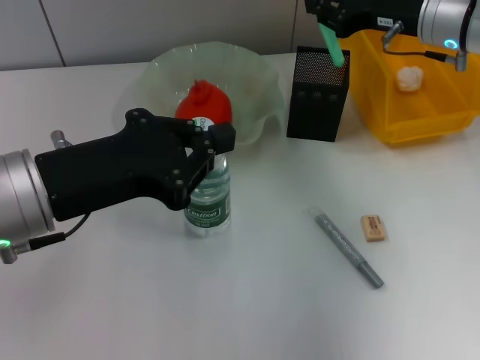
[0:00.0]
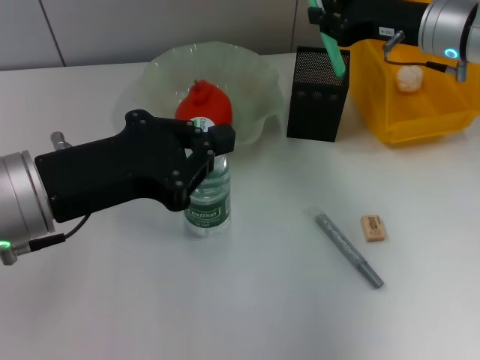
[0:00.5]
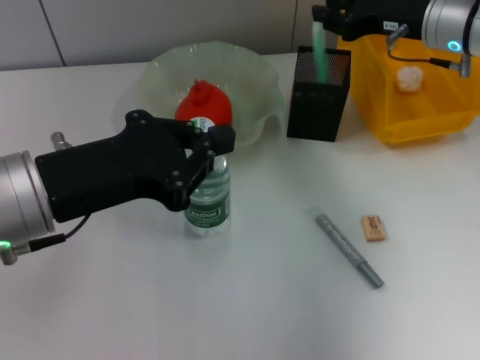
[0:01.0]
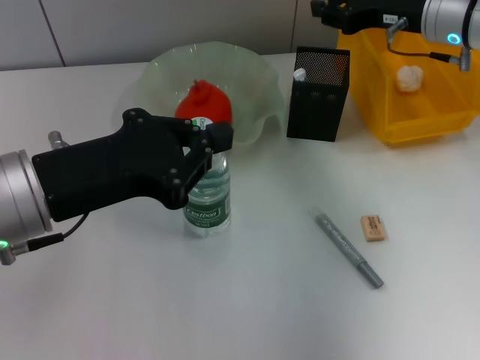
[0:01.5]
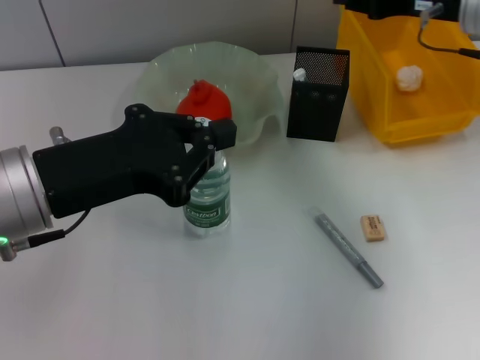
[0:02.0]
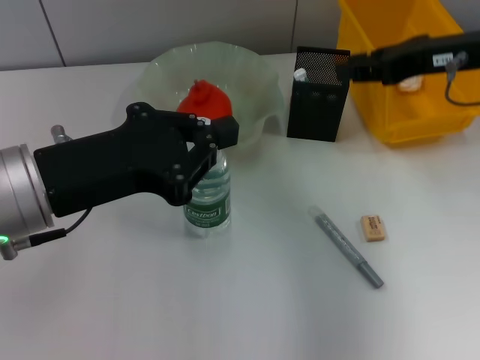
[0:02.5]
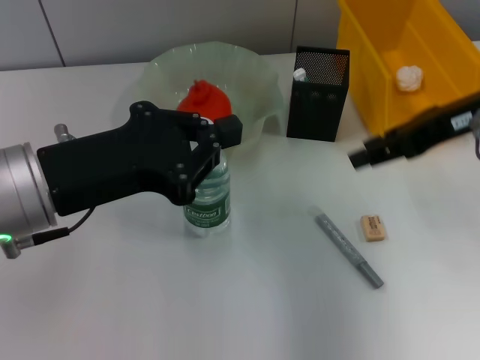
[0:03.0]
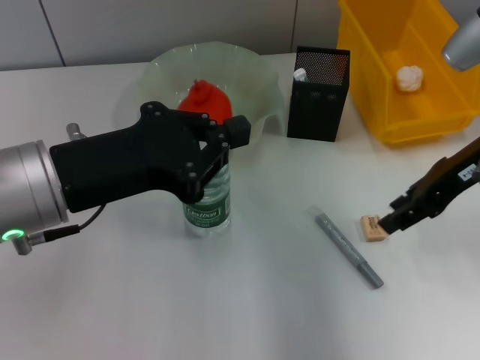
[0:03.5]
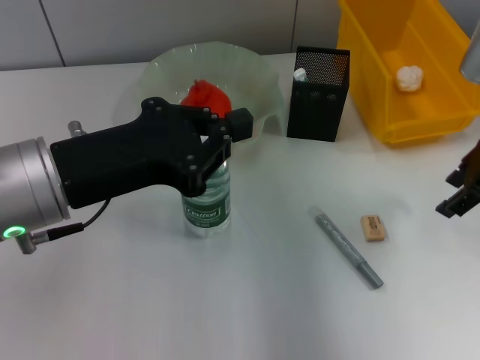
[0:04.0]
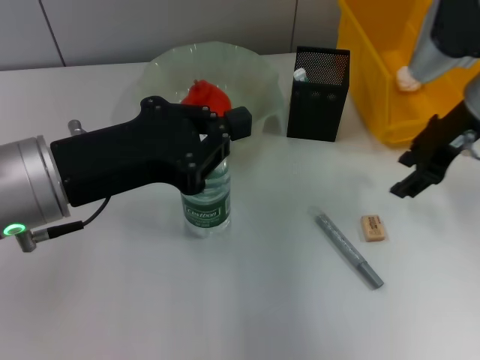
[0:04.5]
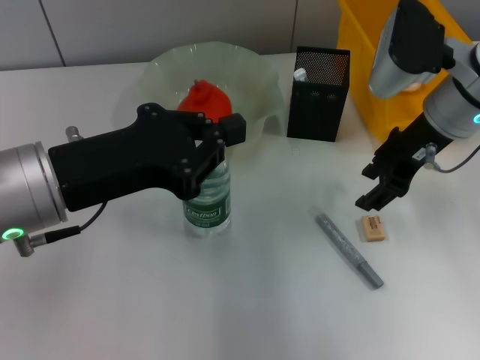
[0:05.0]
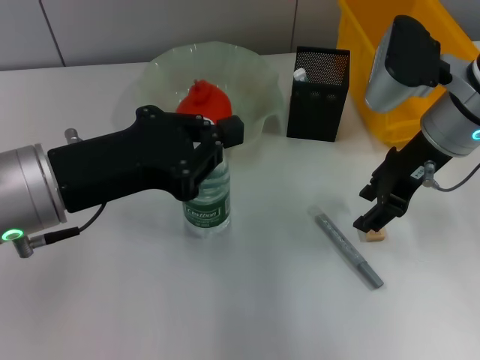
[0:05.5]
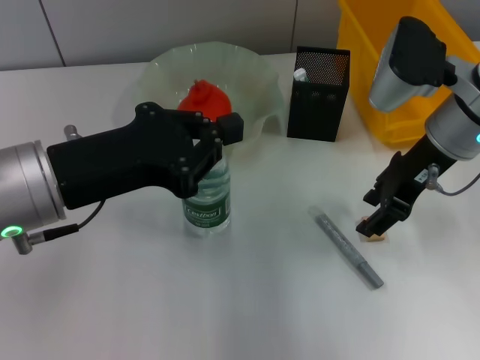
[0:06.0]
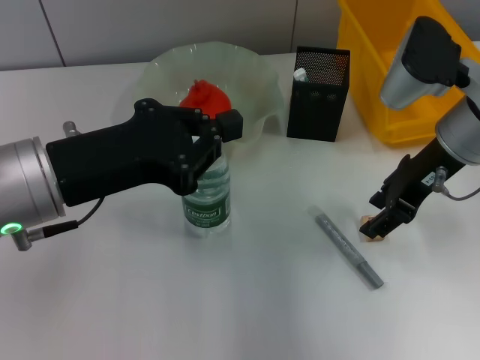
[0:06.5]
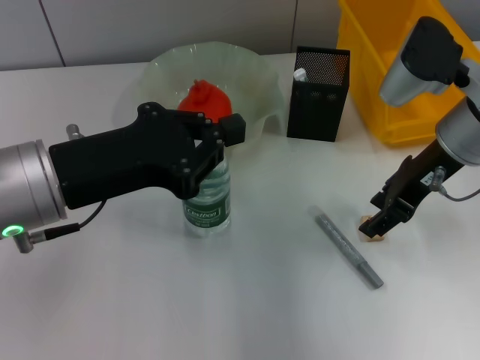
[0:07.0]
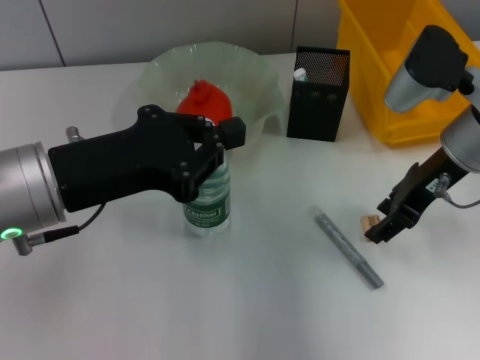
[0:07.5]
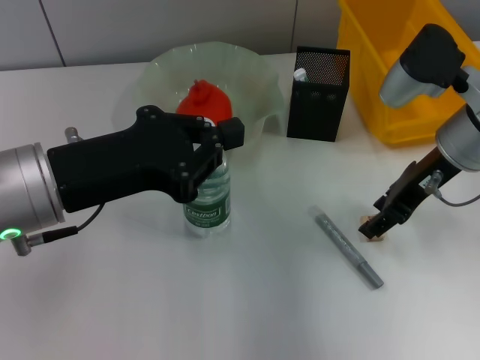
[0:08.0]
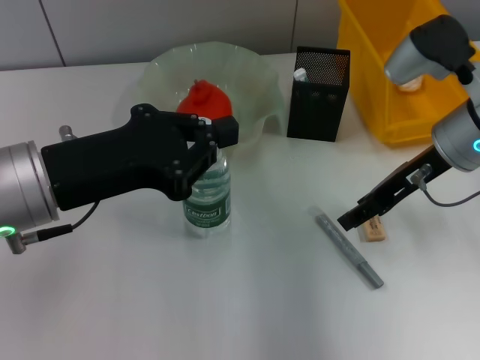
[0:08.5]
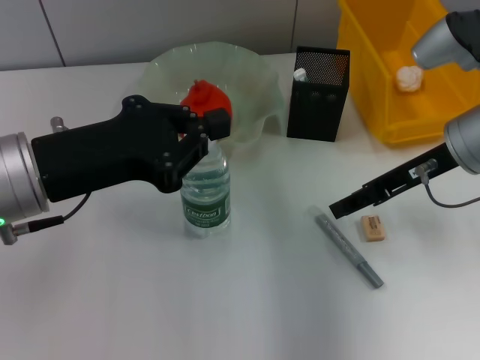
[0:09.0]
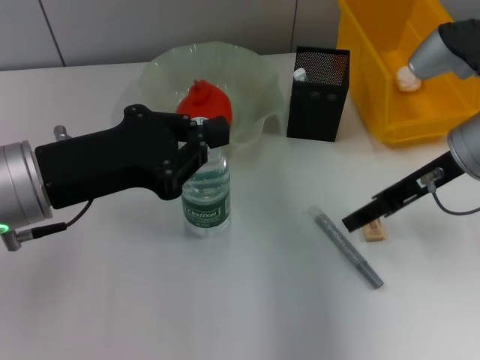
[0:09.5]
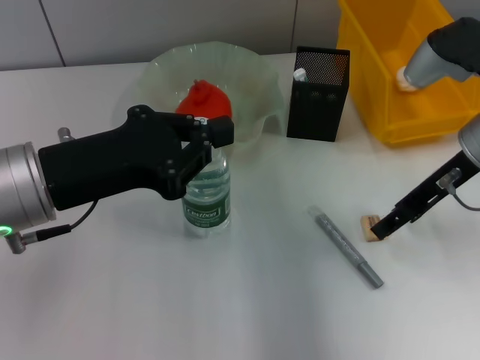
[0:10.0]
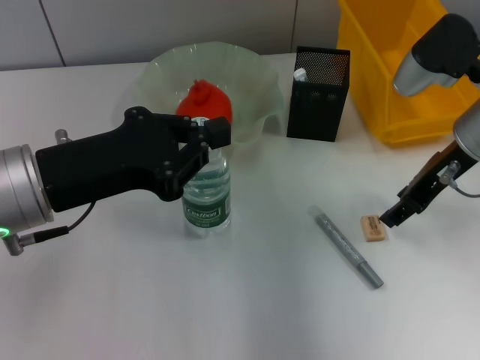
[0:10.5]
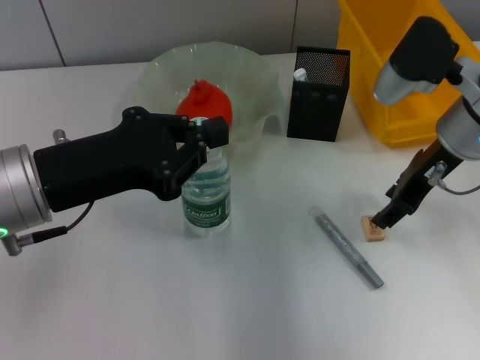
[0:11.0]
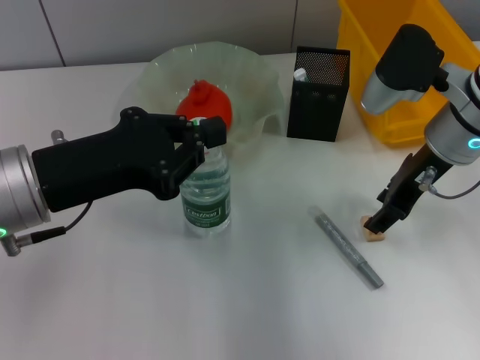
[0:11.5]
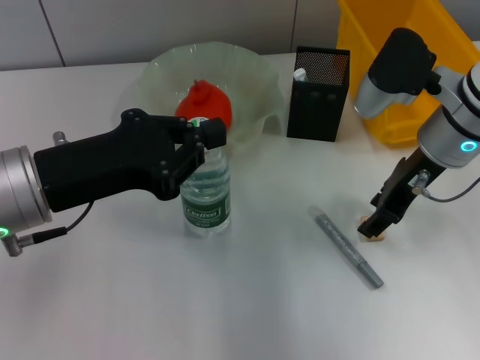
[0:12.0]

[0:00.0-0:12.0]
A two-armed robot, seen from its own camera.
0:00.0 to 0:02.0: There are only small adjustments of the grippers.
0:02.0 to 0:04.0: The right gripper travels backward by some 5 cm, and opens its fingers.
0:04.0 to 0:06.0: The right gripper heads to the left, covering approximately 5 cm.
0:06.0 to 0:08.0: The grippers move only a little.
0:10.0 to 0:12.0: There are only small adjustments of the grippers.

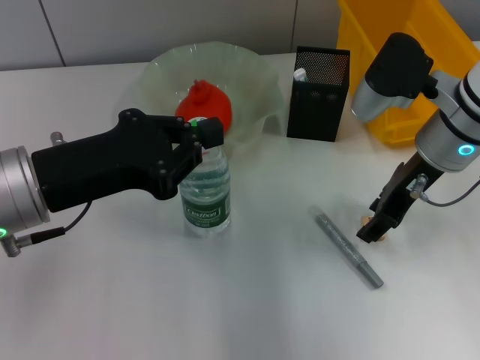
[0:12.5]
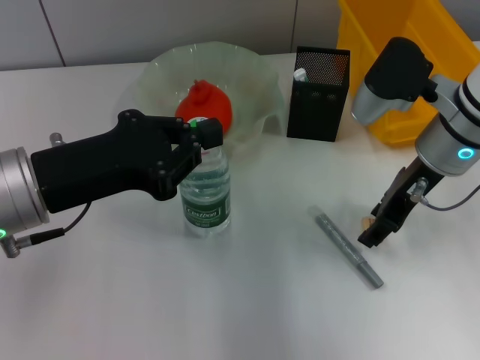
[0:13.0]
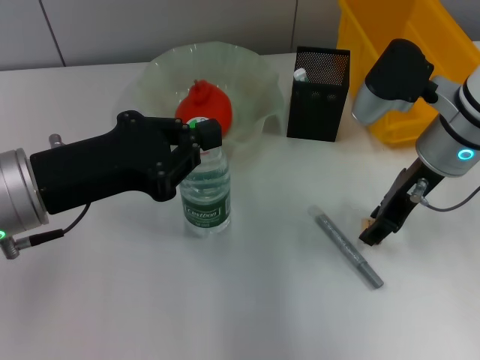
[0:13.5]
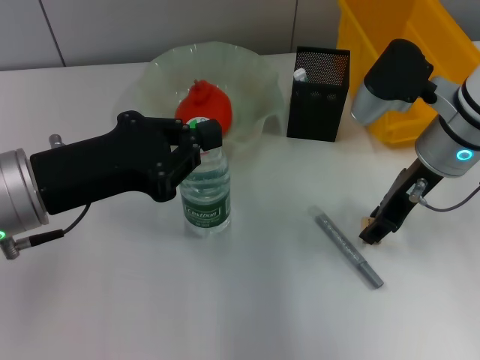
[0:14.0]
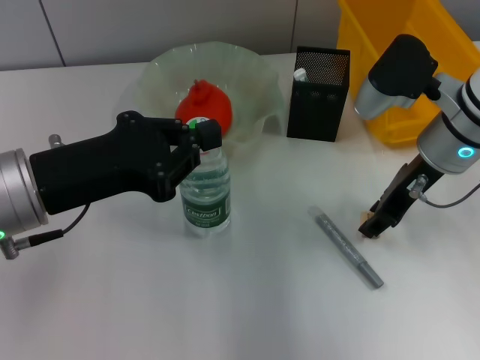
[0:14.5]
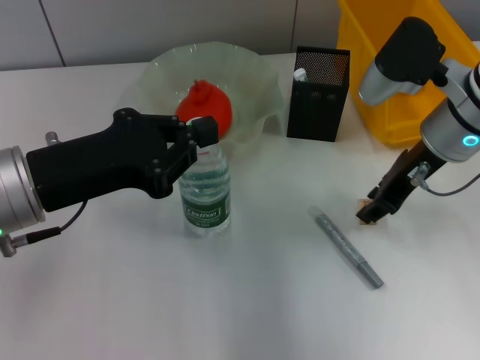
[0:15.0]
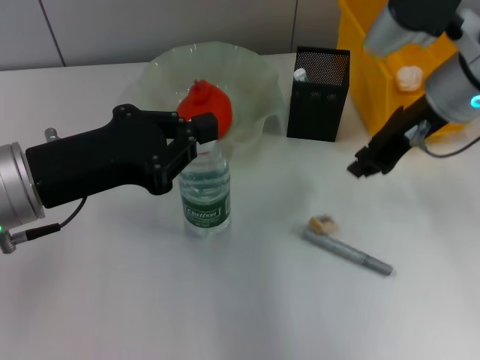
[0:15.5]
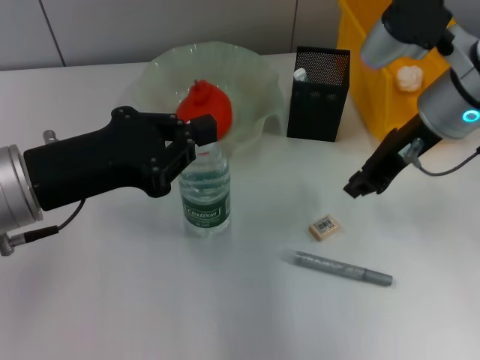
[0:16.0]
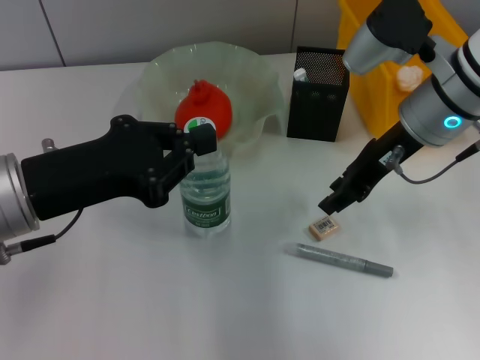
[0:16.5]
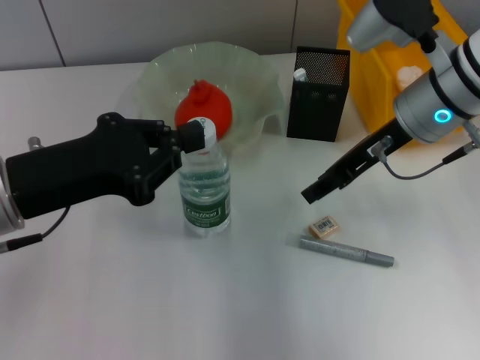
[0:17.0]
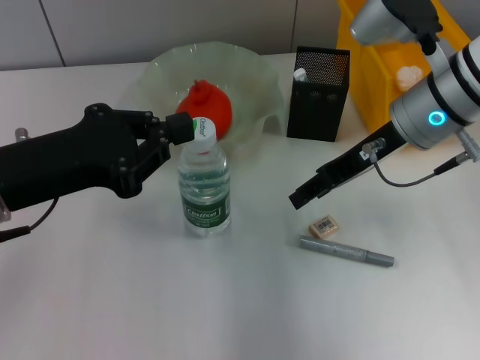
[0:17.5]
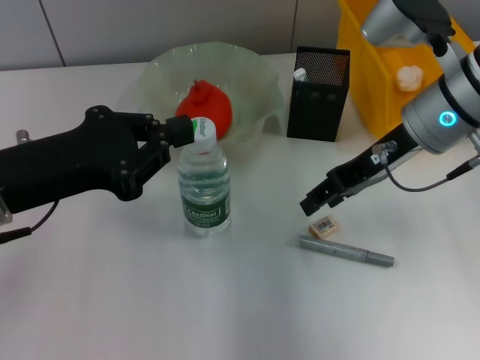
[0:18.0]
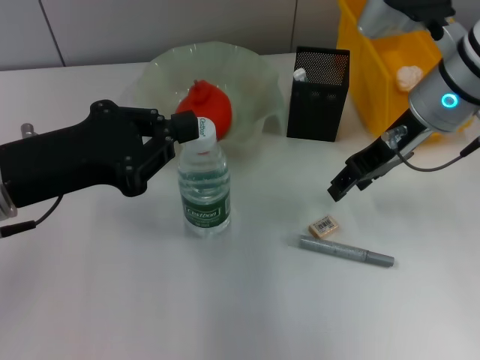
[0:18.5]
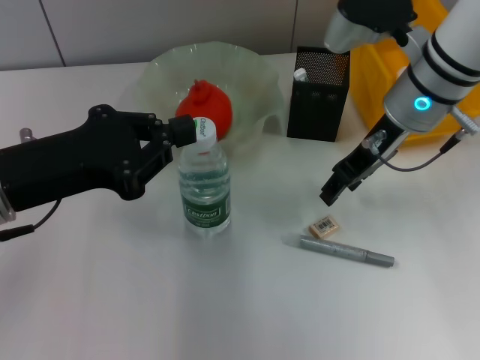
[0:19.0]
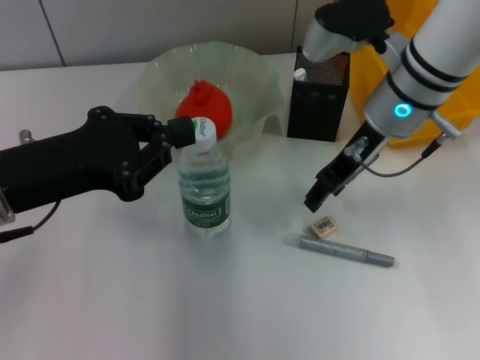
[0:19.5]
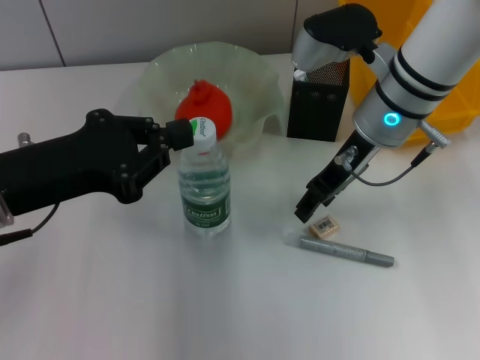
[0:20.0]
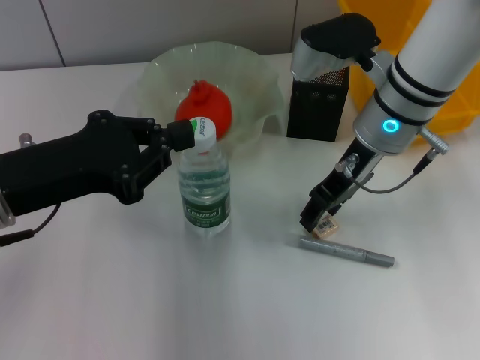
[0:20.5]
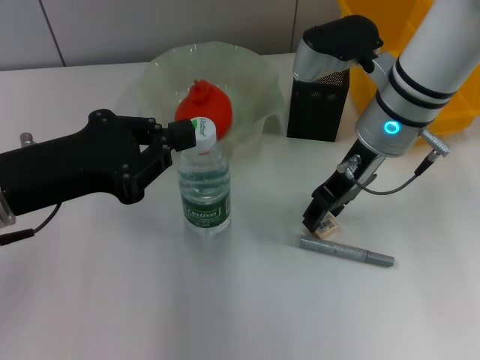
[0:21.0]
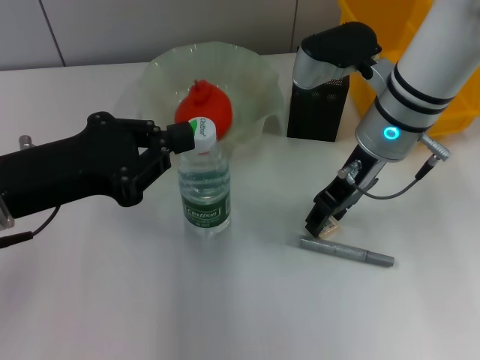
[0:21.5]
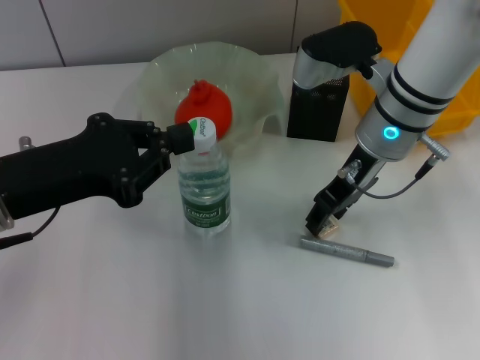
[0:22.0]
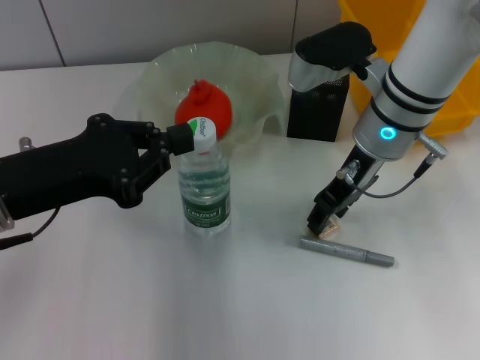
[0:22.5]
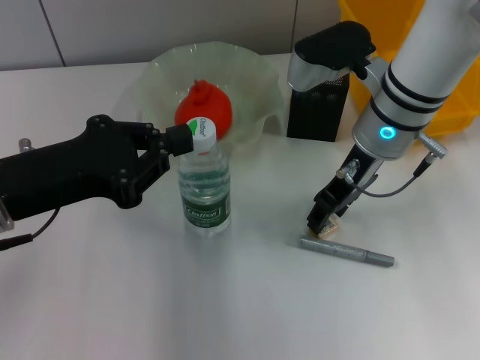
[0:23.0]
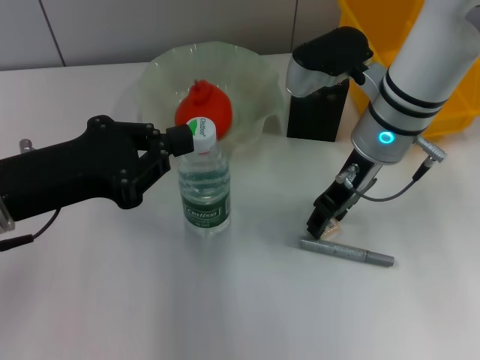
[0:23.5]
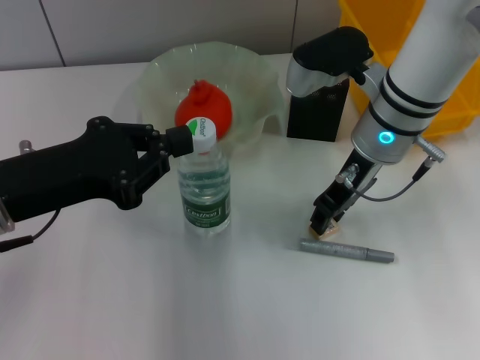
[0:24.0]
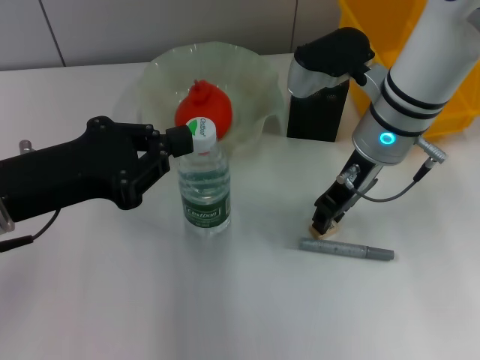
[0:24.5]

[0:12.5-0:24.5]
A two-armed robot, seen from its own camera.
0:12.5 to 0:14.5: Both grippers stay put.
0:14.5 to 0:16.5: The right gripper closes.
0:16.5 to 0:18.5: The right gripper opens up.
0:18.5 to 0:20.5: The right gripper goes approximately 5 cm to the left.
0:20.5 to 0:24.5: The two grippers keep their place.

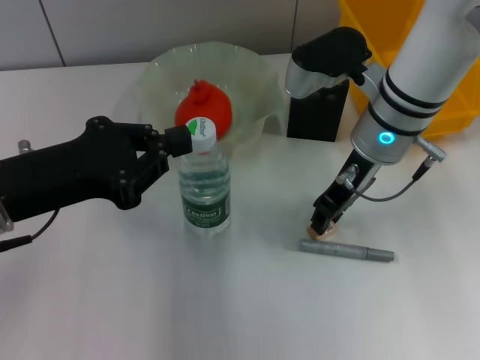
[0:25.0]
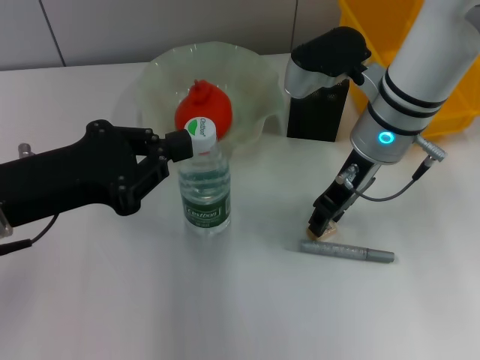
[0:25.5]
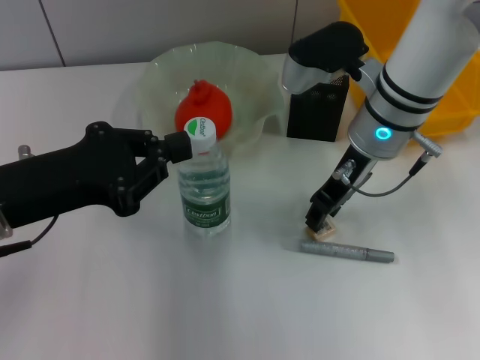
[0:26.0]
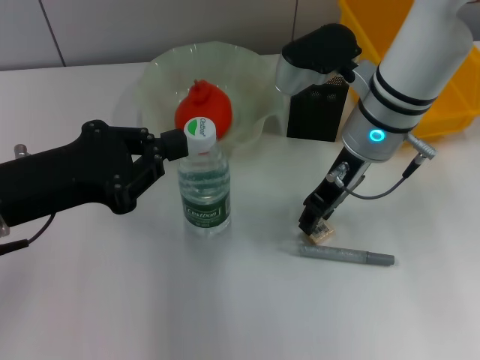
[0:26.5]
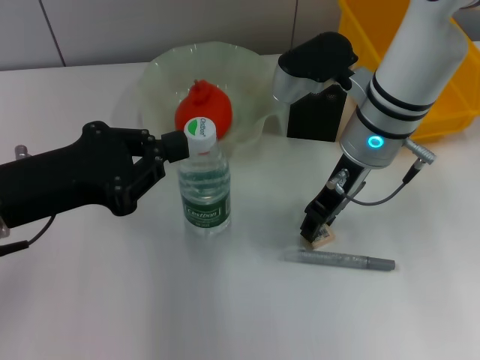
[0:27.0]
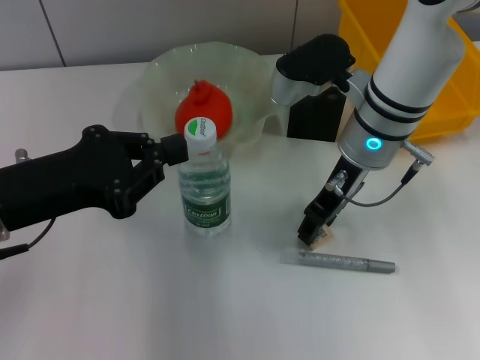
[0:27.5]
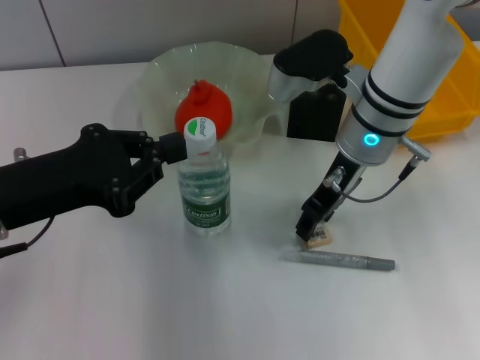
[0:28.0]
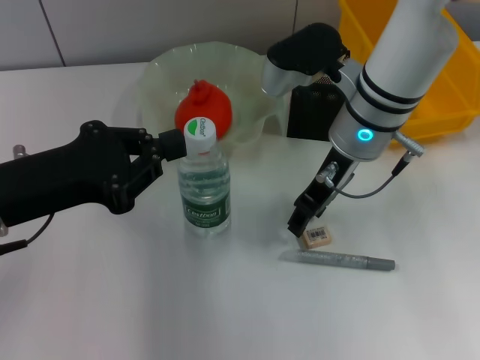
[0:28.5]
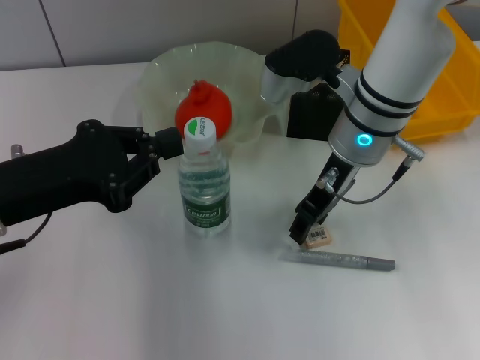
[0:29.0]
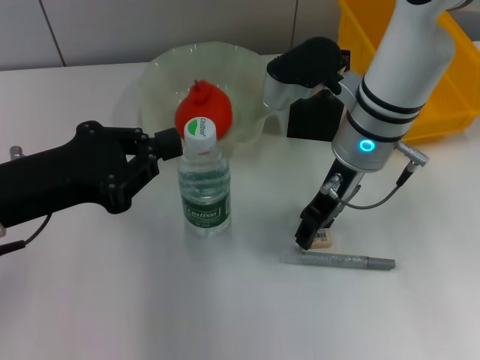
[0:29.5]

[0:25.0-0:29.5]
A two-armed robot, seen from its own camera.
0:25.0 to 0:27.0: The two grippers keep their place.
0:27.0 to 0:29.5: The two grippers keep their place.
